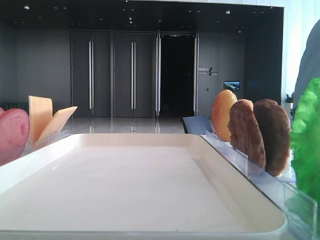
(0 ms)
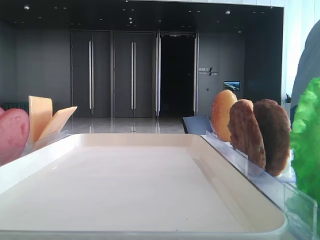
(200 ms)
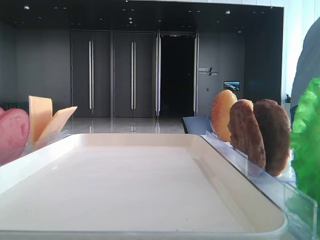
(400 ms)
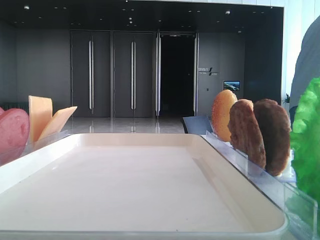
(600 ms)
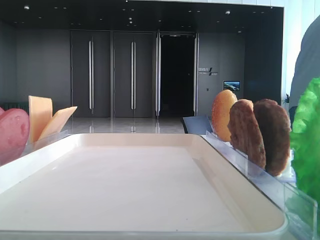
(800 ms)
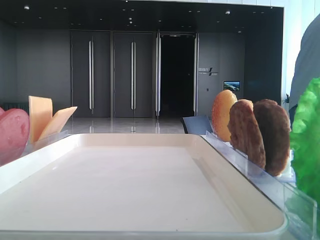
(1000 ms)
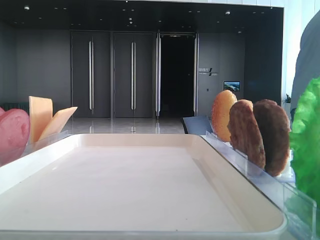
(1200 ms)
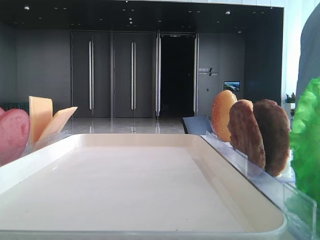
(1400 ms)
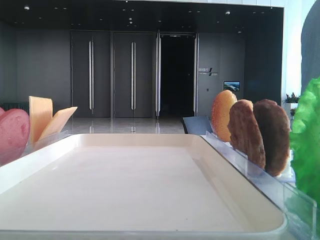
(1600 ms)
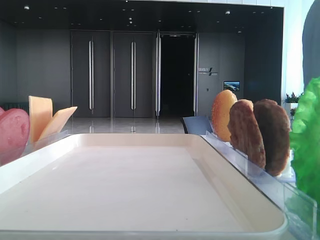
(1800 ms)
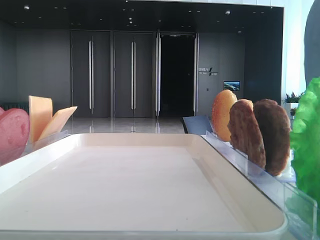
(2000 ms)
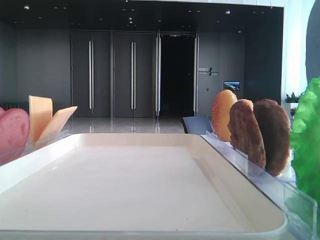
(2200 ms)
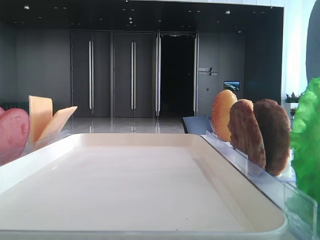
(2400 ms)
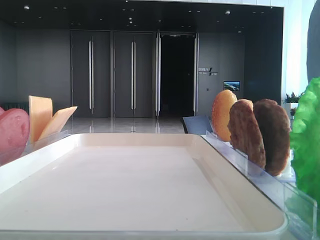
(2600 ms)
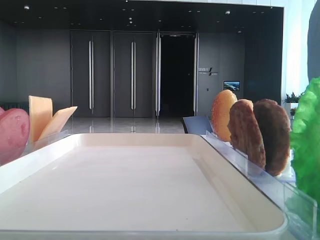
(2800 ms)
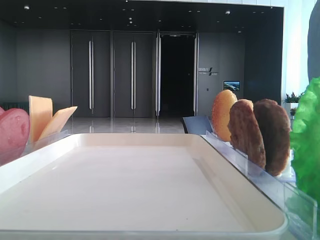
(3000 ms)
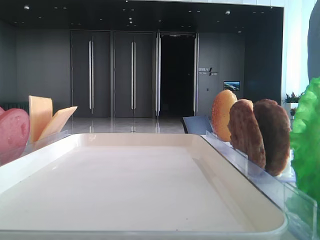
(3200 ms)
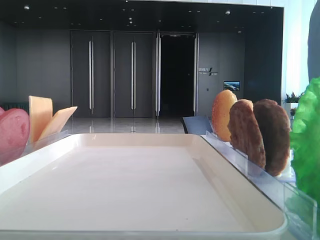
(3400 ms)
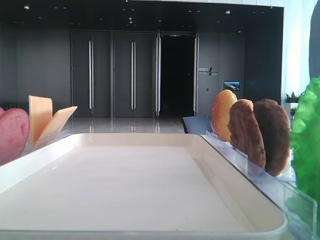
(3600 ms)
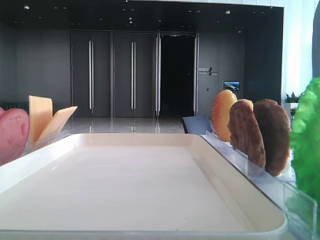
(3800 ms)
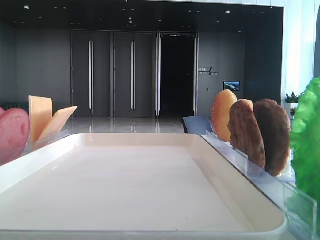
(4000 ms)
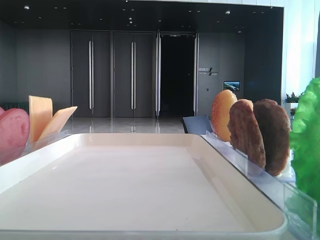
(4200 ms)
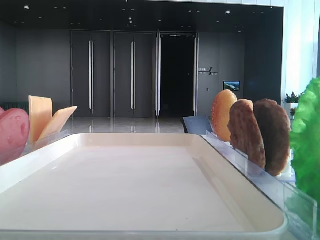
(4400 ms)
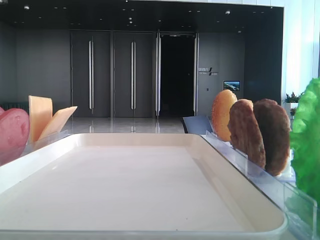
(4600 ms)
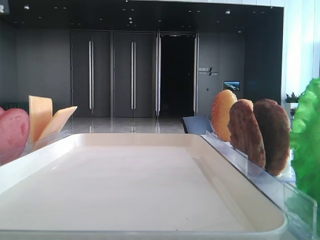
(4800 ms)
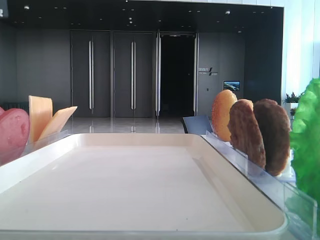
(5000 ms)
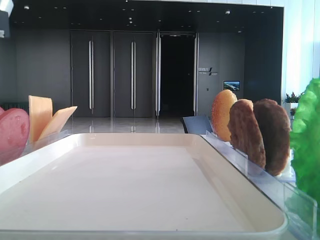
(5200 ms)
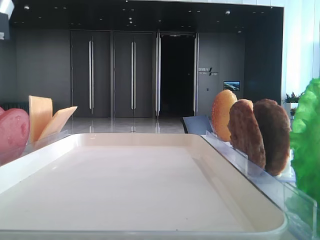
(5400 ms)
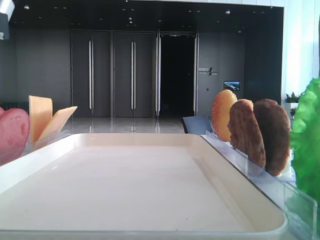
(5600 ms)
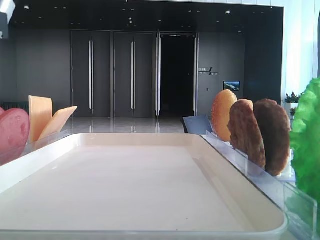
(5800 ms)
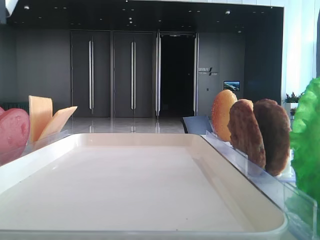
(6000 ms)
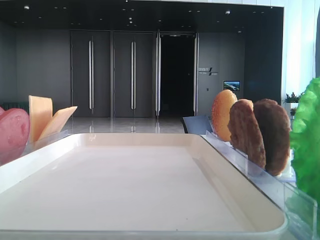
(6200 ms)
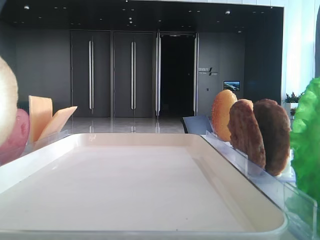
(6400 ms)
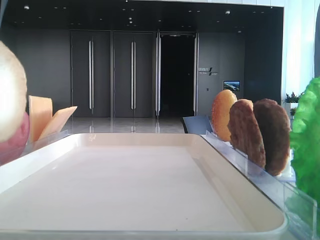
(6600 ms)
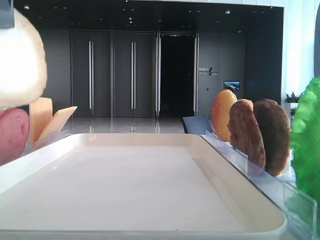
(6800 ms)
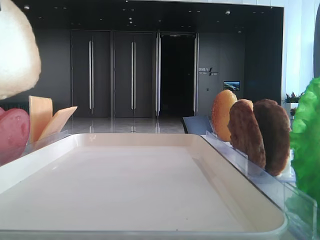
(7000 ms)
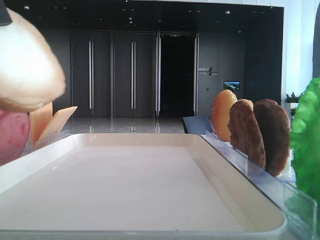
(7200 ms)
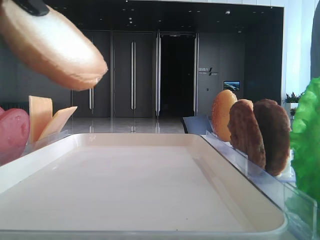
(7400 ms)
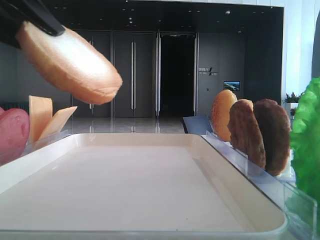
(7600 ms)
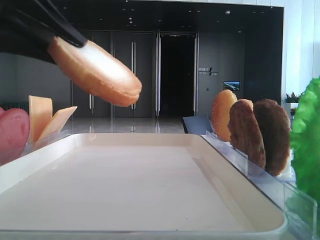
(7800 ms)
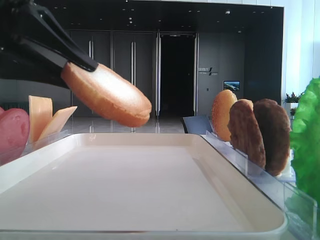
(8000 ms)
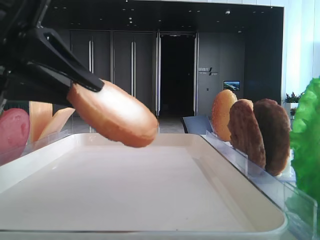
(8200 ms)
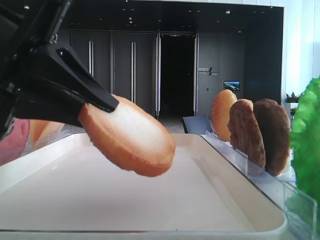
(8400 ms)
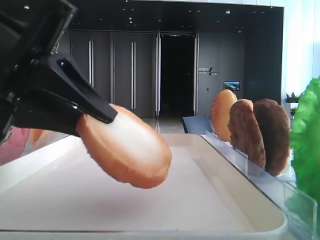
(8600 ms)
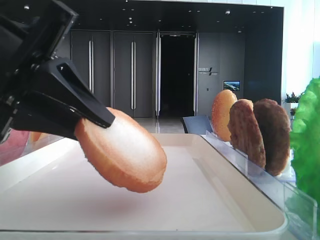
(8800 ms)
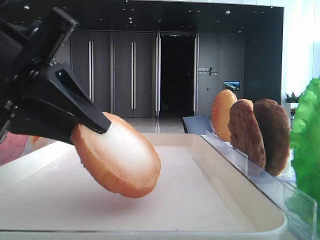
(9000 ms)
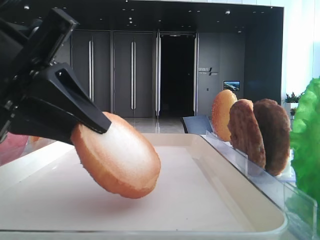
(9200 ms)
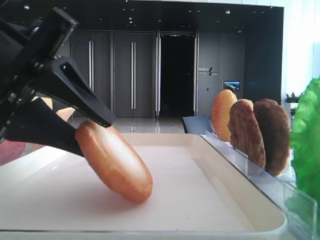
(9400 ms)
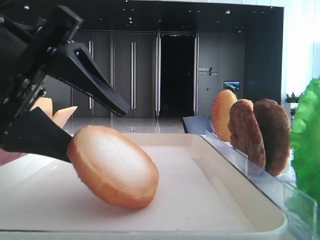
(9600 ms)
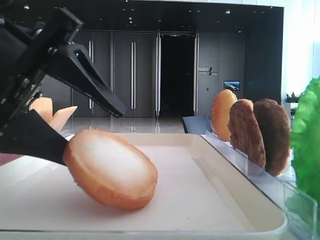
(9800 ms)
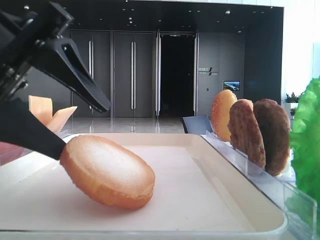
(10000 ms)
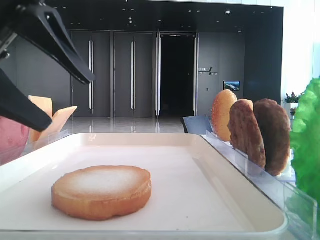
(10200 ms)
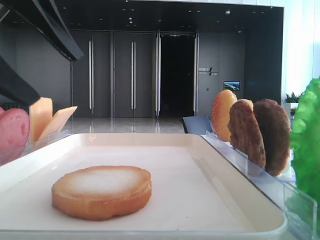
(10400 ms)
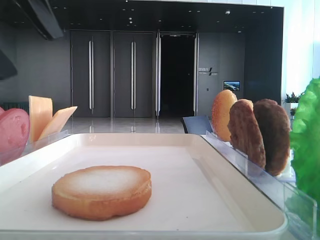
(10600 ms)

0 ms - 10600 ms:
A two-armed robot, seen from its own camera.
Step, 6000 ms - 10000 ms: Place the bread on the tray with the left hand.
6000 ms - 7600 ms: The left gripper moves roughly 10 cm upward and comes back.
7600 ms - 9000 ms: The left gripper shifts some 10 cm downward.
9000 ms - 10600 ms: The left gripper is displaced upward by some 10 cm, and opens.

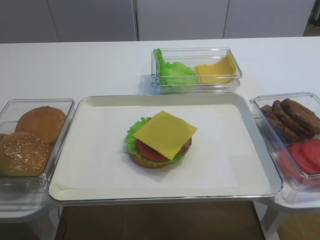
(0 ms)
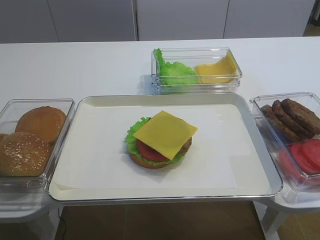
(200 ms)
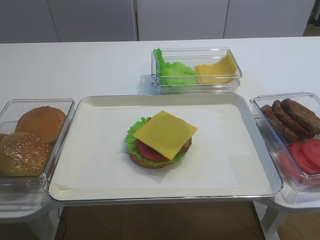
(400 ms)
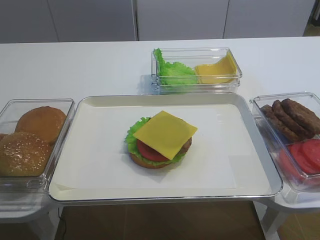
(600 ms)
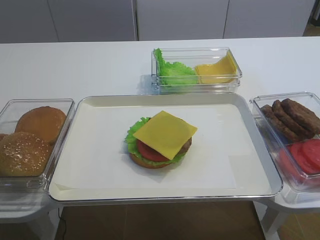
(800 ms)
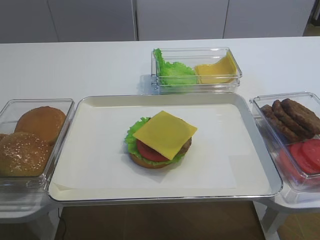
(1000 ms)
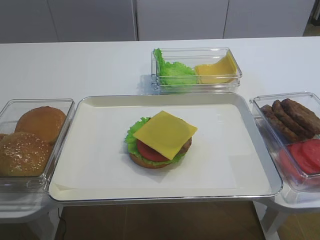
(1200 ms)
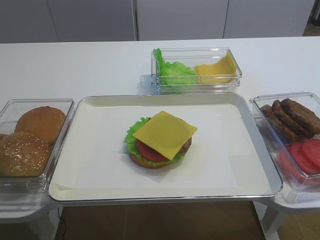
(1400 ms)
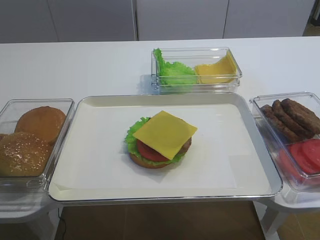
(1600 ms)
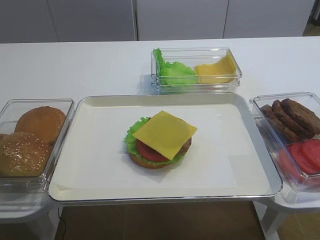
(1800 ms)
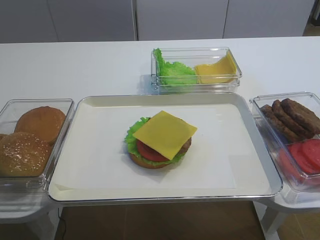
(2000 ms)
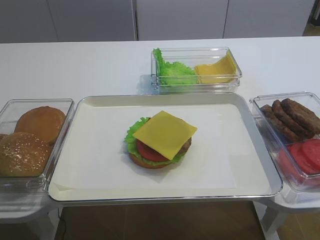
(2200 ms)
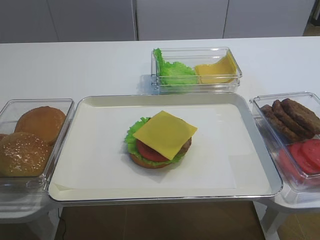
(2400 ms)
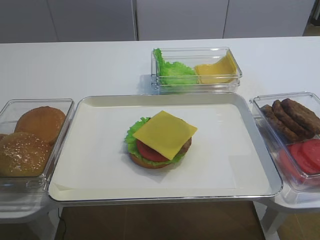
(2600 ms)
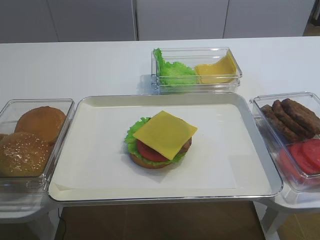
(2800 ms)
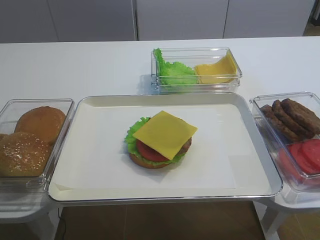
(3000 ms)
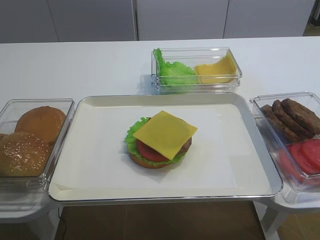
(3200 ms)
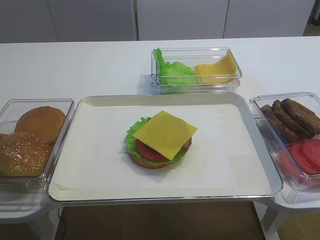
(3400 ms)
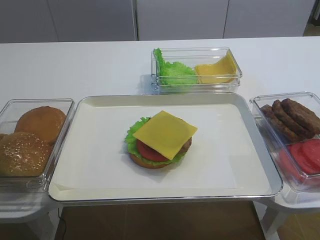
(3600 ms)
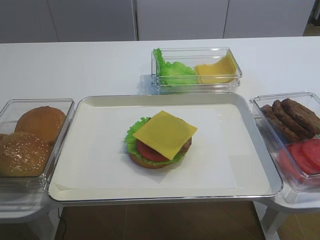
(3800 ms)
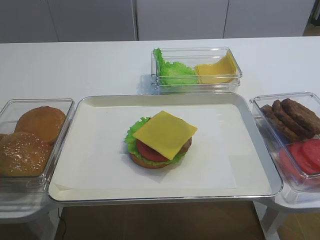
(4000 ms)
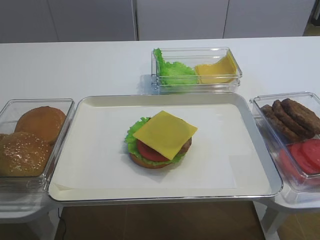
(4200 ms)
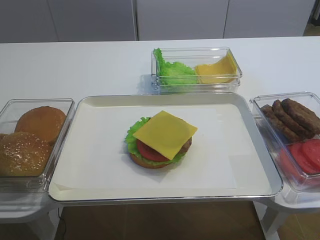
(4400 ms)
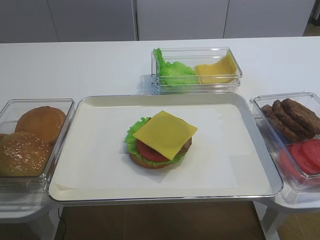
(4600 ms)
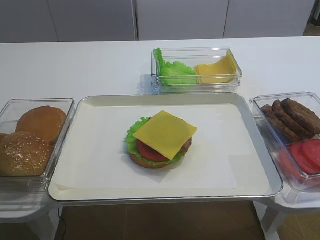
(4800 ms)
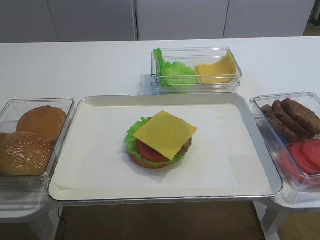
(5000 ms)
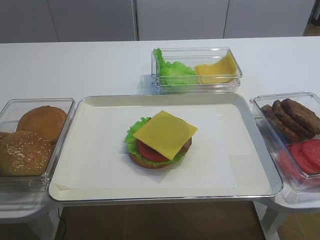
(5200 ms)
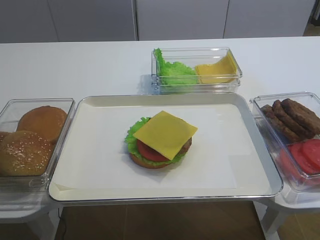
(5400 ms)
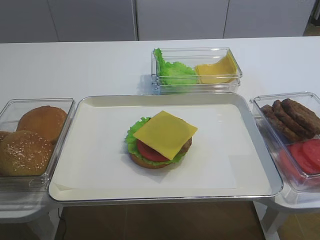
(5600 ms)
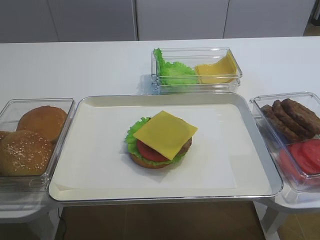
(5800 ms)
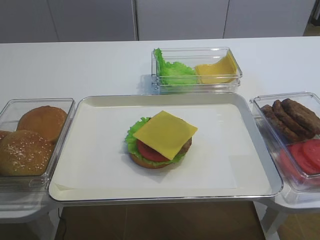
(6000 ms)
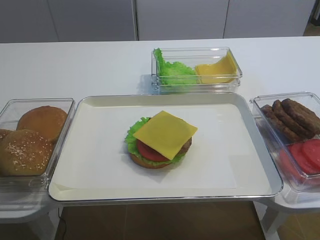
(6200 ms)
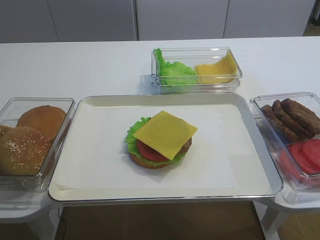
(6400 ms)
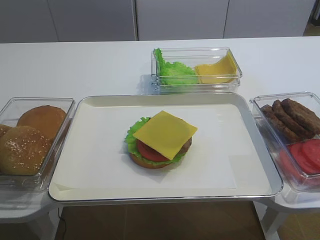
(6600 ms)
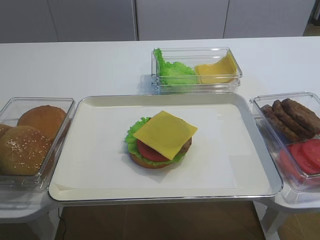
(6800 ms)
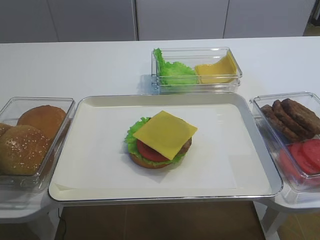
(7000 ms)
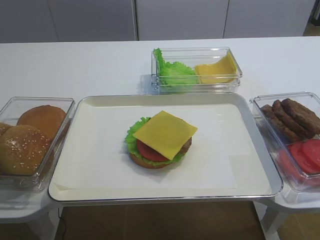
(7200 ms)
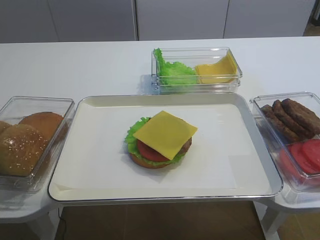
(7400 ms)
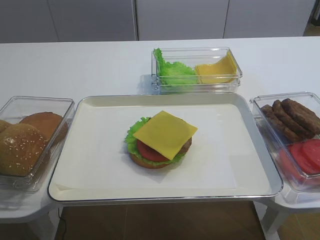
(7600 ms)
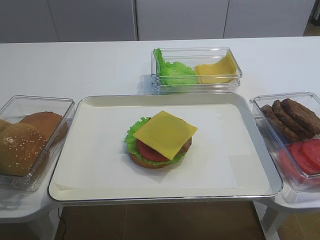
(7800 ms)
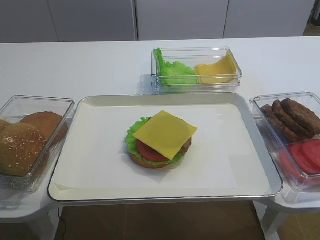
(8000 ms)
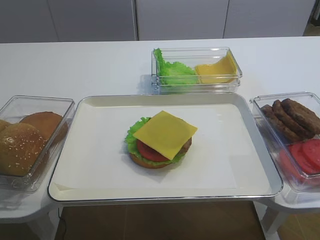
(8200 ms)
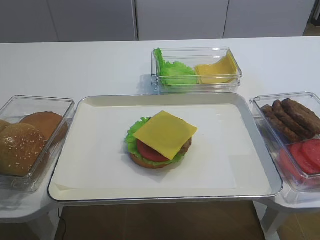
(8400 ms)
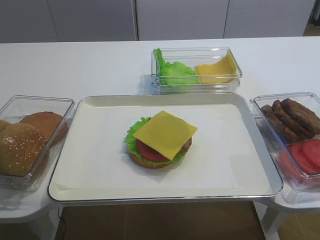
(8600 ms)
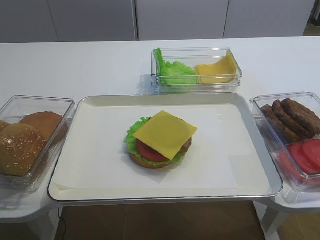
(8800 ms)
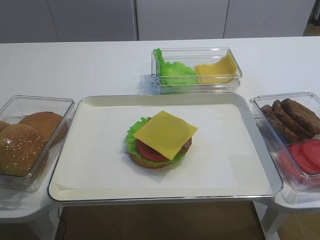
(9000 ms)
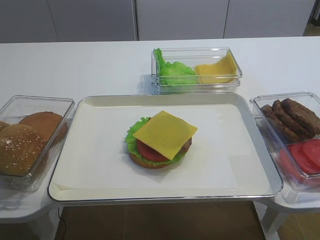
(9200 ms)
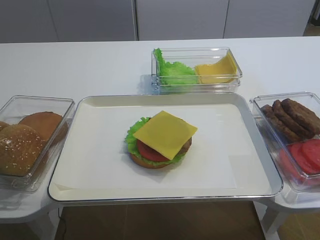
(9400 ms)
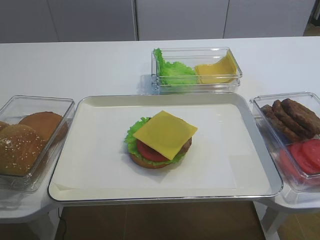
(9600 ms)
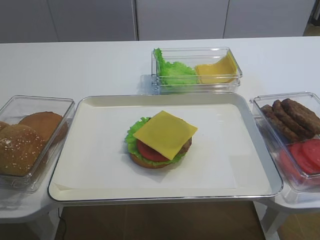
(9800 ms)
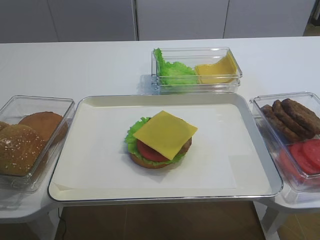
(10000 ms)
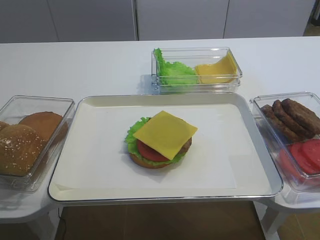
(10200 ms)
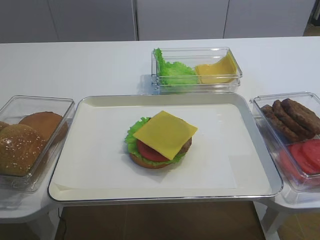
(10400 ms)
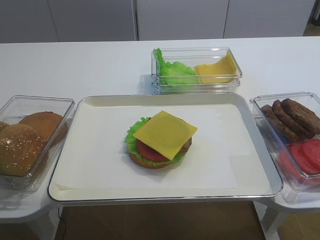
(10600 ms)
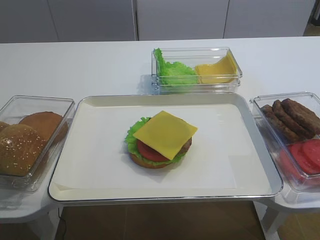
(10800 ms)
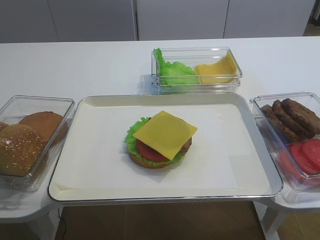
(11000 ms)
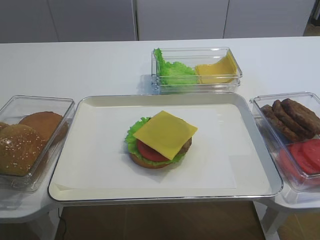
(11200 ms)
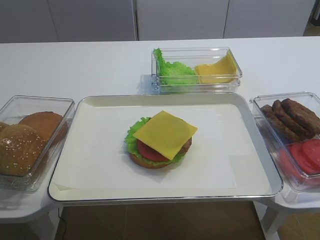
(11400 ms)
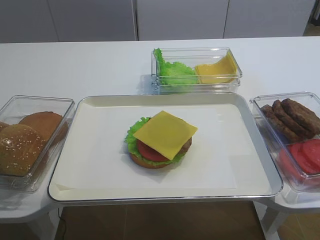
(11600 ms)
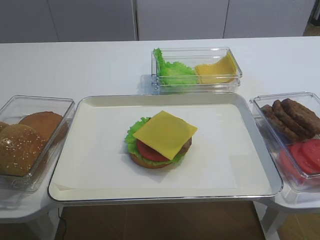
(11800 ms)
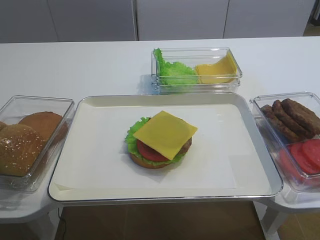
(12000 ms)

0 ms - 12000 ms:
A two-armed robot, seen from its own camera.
6000 ms - 7600 ms: The left gripper closes up.
9000 ms - 12000 ms: Neither gripper changes place.
